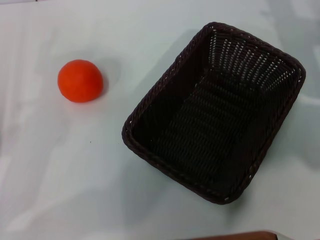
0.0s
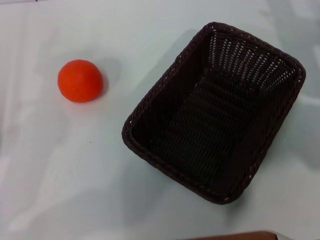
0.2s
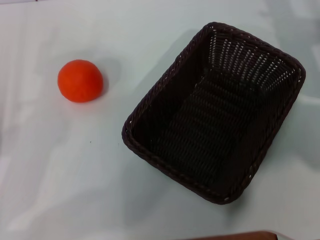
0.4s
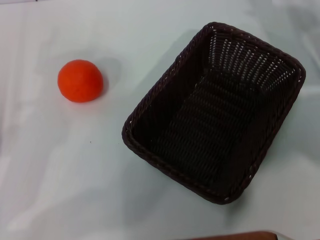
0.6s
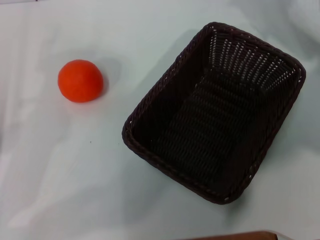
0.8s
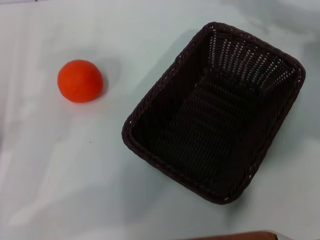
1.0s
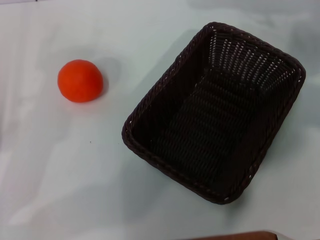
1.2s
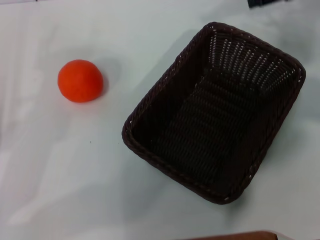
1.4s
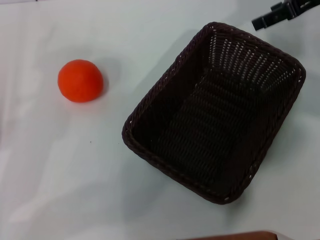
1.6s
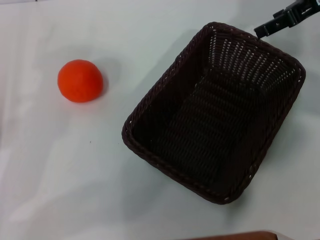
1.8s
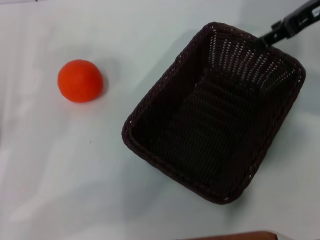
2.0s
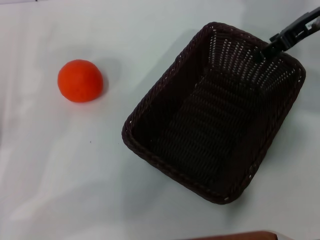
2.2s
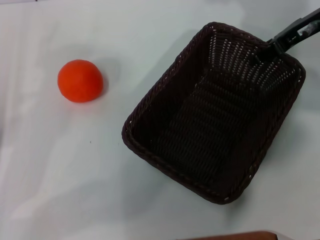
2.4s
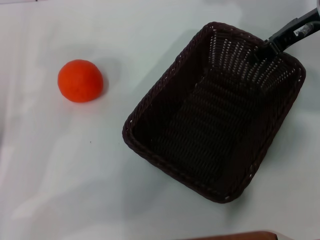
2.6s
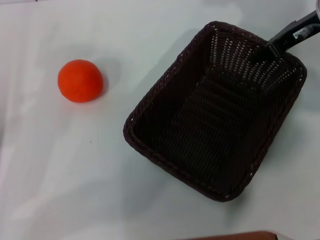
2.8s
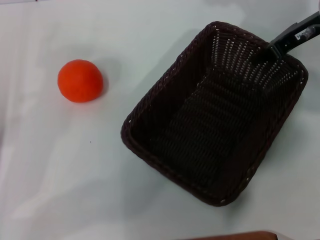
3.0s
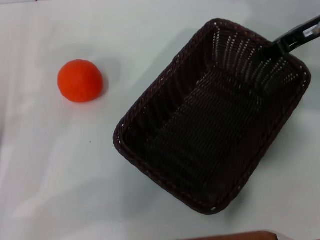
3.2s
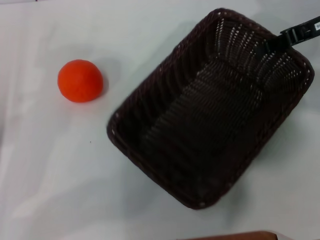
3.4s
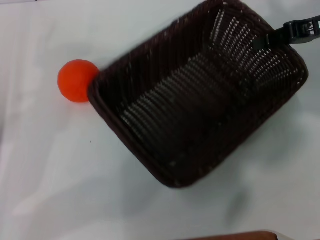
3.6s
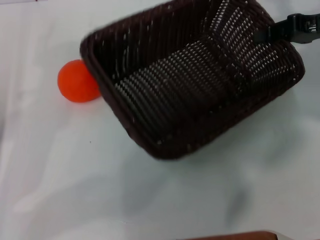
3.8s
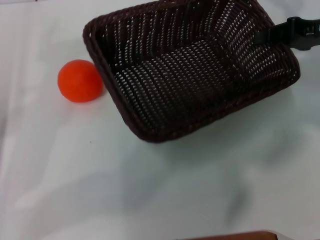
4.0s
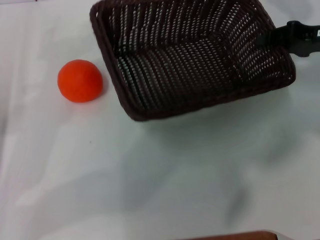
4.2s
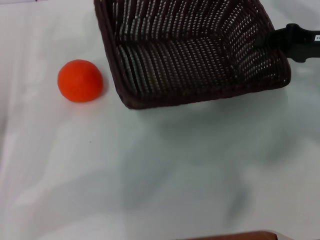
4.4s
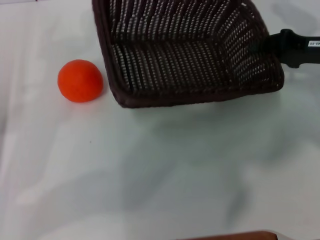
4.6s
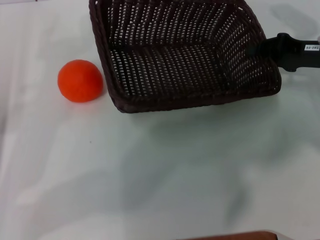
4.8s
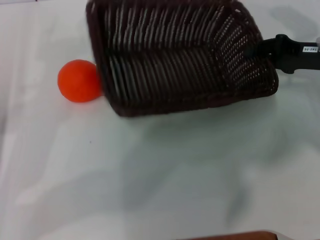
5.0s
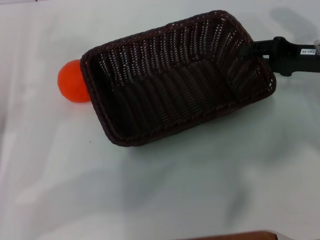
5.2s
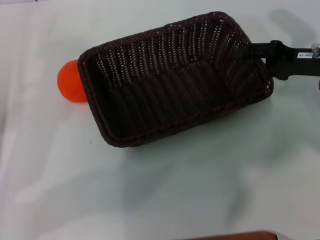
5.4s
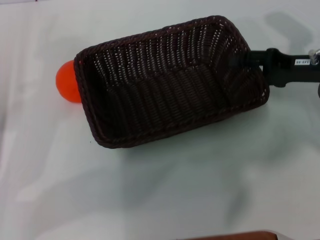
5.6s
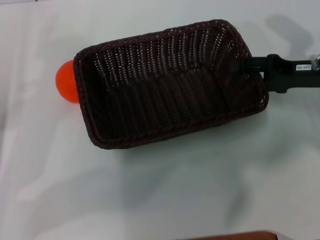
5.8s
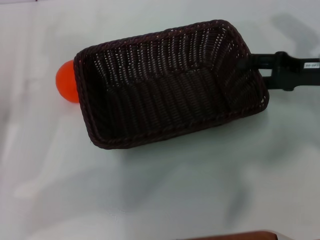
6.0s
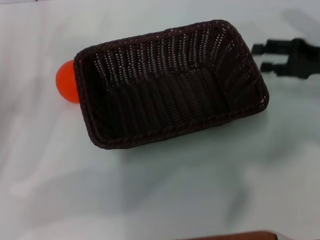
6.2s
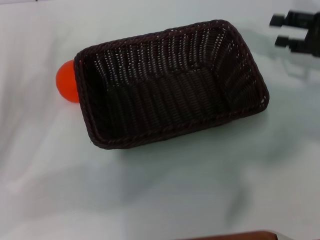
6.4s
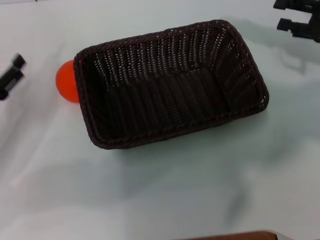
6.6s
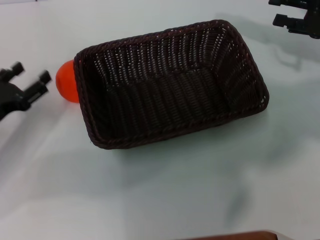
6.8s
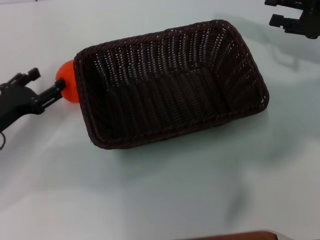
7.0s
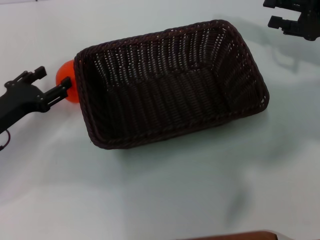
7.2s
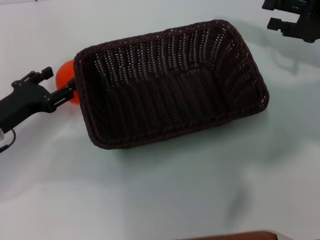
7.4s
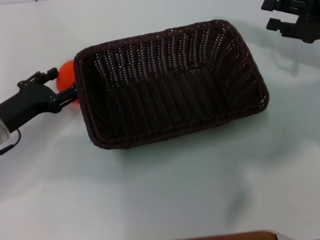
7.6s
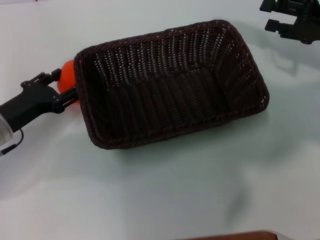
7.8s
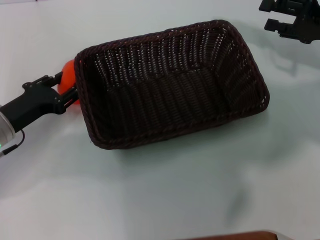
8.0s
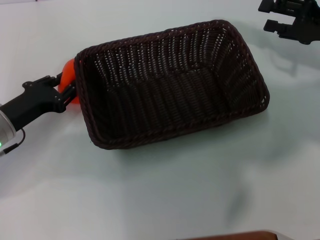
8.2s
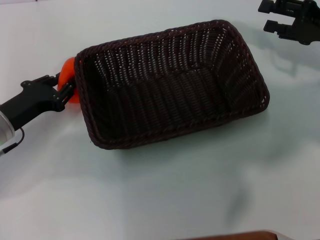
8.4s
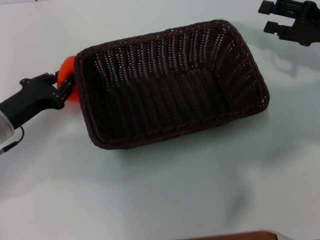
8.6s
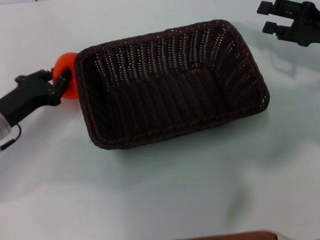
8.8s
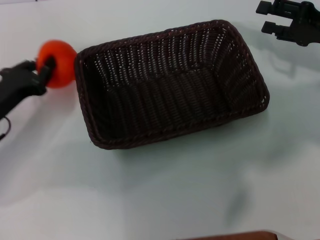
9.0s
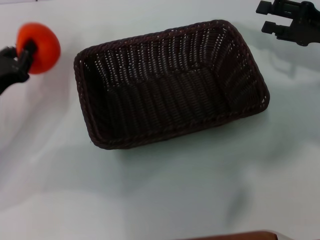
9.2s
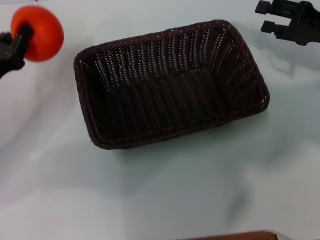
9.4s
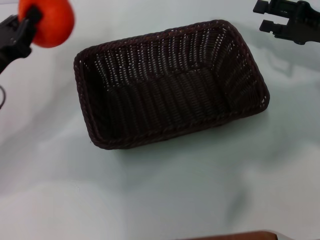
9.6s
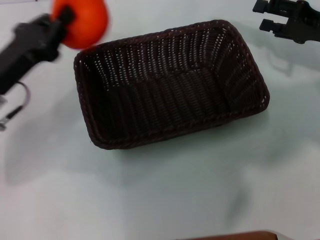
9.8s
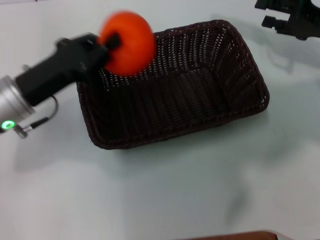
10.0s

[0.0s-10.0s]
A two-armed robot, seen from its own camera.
Task of the whole recording: the right gripper pick up the black basket and place it horizontally in the middle of the table, the left gripper pick up the orange and place it into the black basket.
Step, 0.0s to 3.0s: Pick up the dark basket with the right gripper.
Step, 3.2s to 6.2s: Place the dark basket in the center of view with the right gripper.
Step, 6.4s to 9.0s: Pick up the orange with the left gripper.
0.0s to 1.4s: The right gripper moves upward, approximately 15 cm.
1.4s to 2.8s: The right gripper shifts approximately 5 cm downward, and closes.
2.8s to 4.2s: The right gripper goes some 5 cm to the right.
4.2s to 5.8s: The right gripper shifts by about 5 cm, and opens.
5.8s to 7.2s: The right gripper changes place by approximately 5 cm; the left gripper ends up approximately 5 cm from where it was.
7.2s to 8.6s: The left gripper closes its fingers.
8.6s to 10.0s: The left gripper is displaced upward by approximately 5 cm.

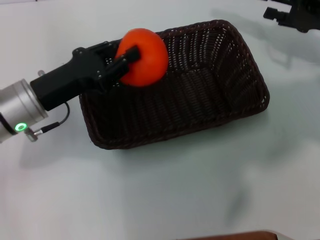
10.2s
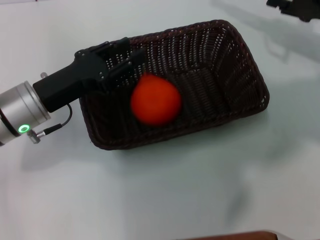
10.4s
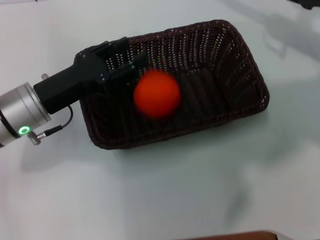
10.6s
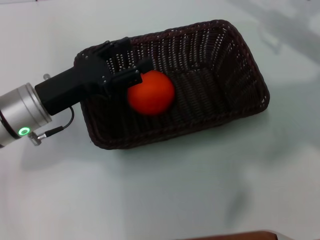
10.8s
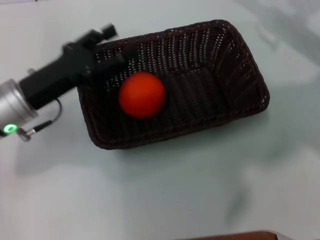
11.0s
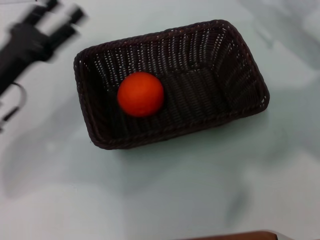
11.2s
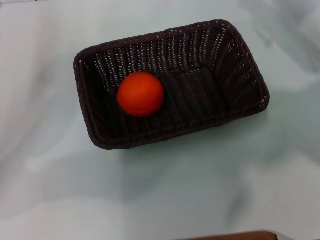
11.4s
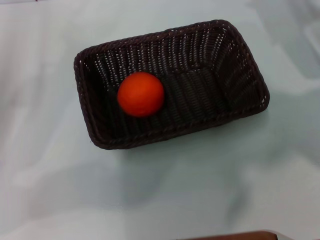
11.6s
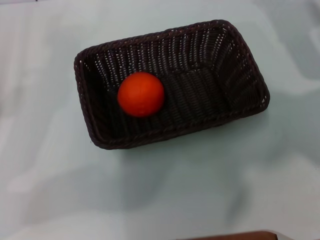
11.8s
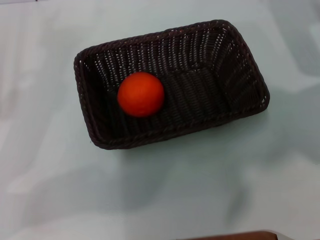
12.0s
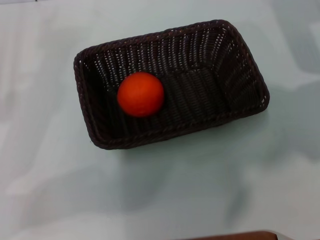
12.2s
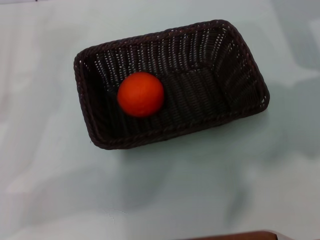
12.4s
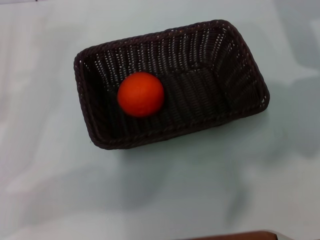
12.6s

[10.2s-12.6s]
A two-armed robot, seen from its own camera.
Task of the whole recording: the right gripper pick up the black basket and place it horizontally in the middle of the table, the left gripper pick up the orange and place it into the black basket.
10.2s to 11.4s: The left gripper moves to the left, roughly 10 cm, and opens its fingers.
11.4s to 12.6s: The left gripper travels to the left by about 5 cm.

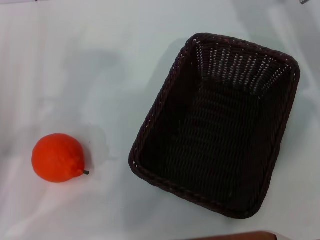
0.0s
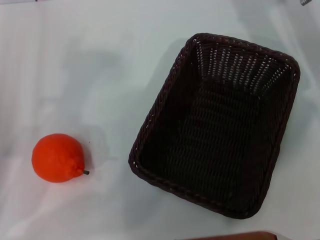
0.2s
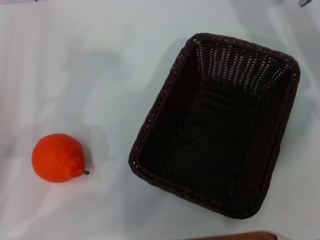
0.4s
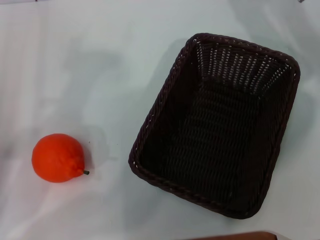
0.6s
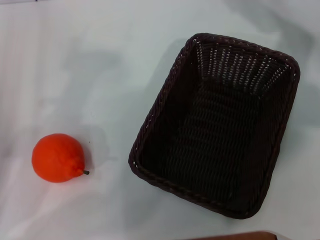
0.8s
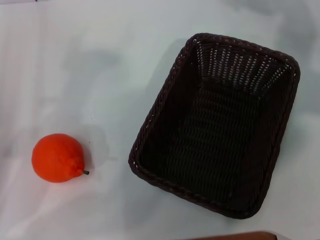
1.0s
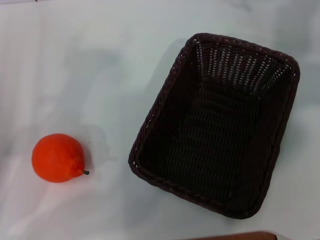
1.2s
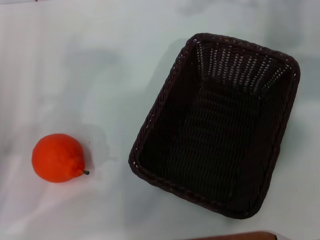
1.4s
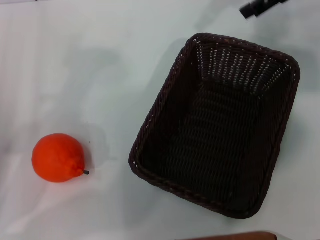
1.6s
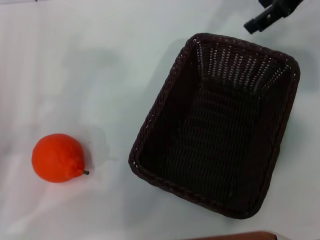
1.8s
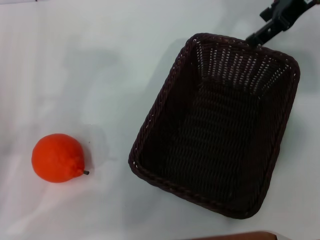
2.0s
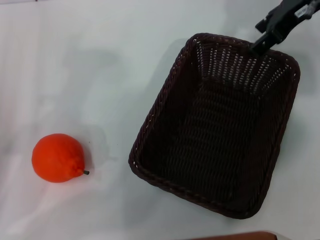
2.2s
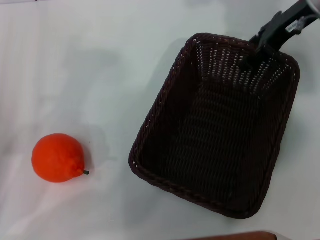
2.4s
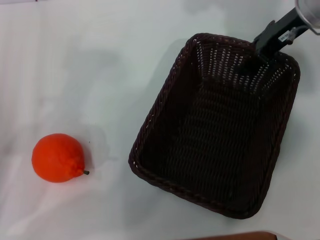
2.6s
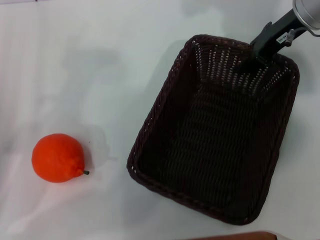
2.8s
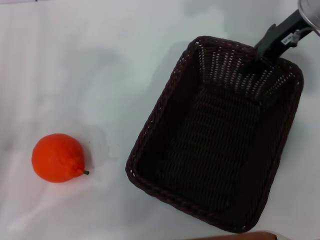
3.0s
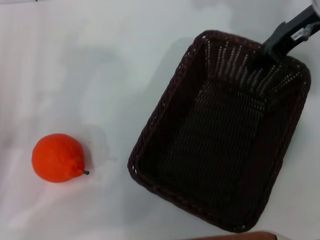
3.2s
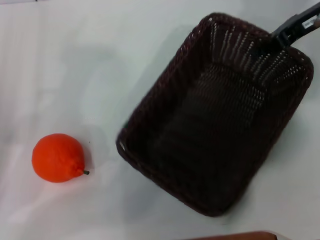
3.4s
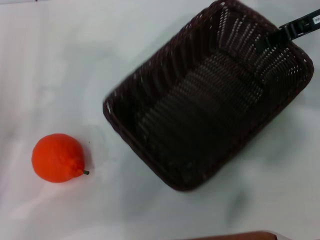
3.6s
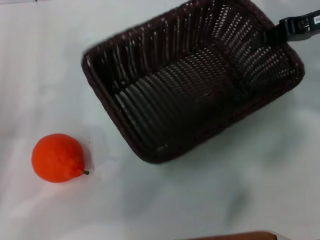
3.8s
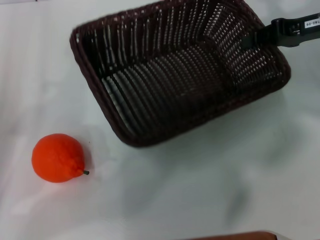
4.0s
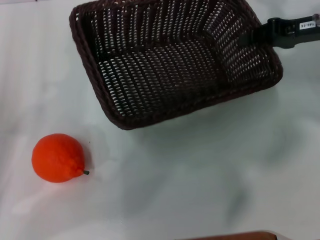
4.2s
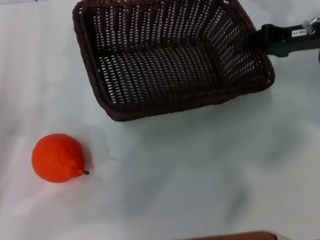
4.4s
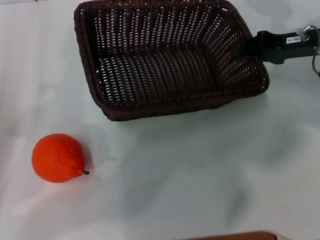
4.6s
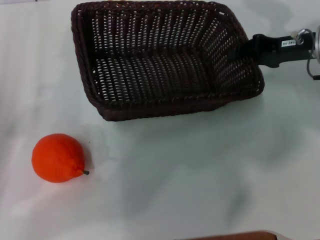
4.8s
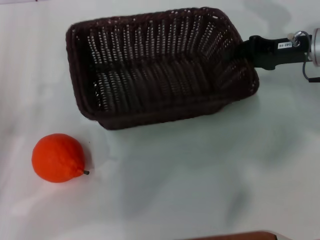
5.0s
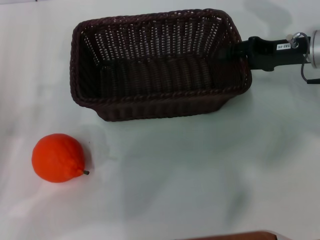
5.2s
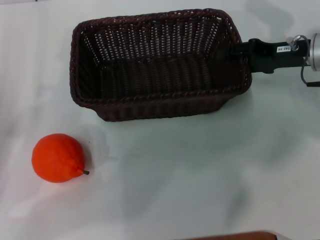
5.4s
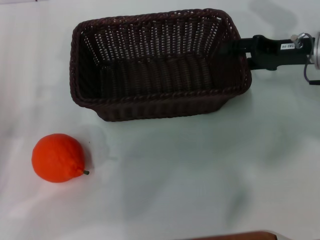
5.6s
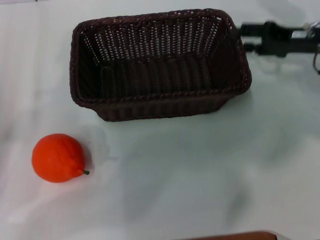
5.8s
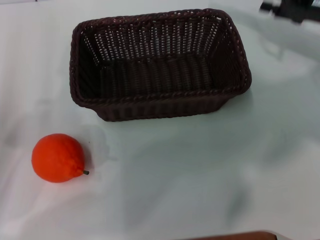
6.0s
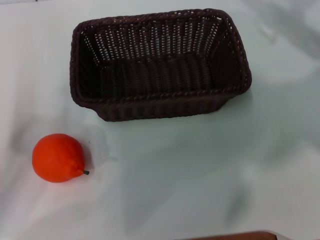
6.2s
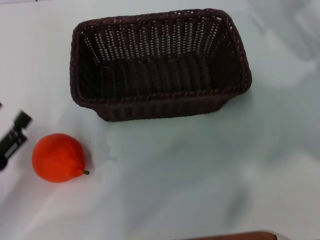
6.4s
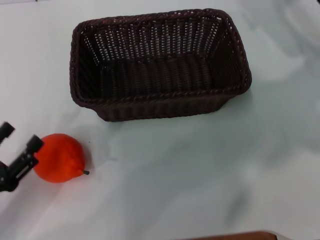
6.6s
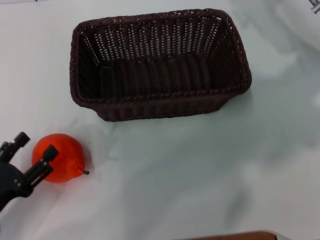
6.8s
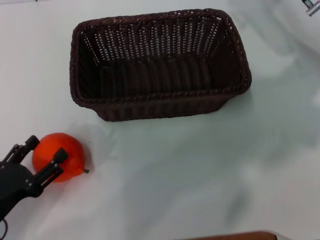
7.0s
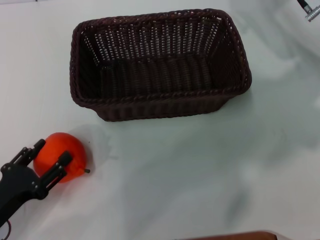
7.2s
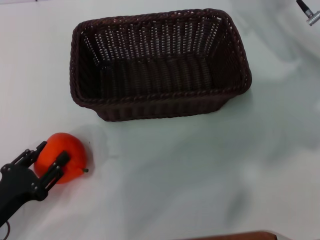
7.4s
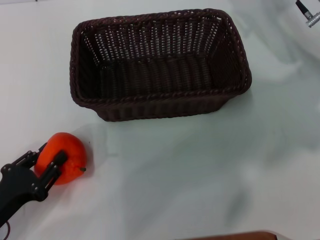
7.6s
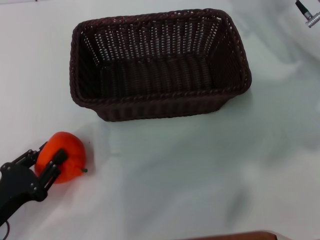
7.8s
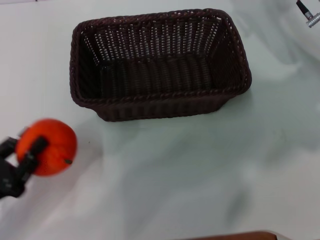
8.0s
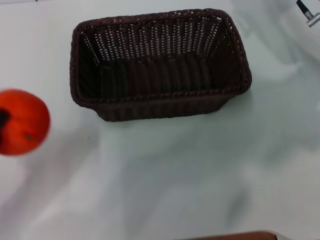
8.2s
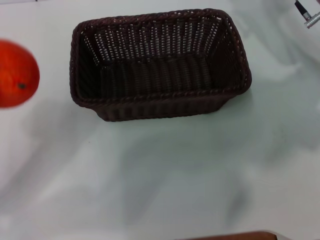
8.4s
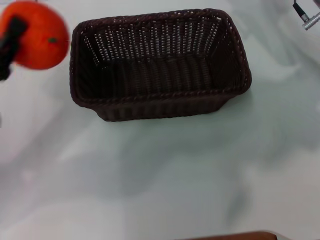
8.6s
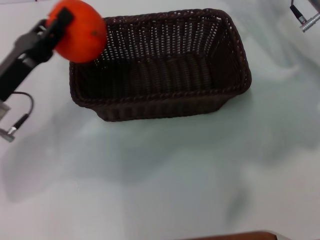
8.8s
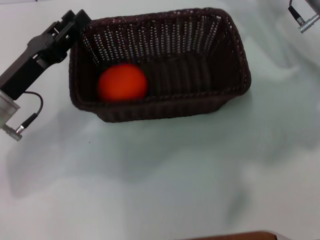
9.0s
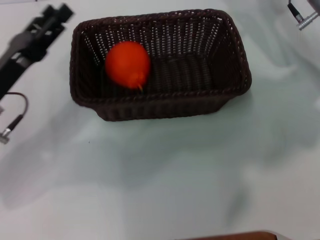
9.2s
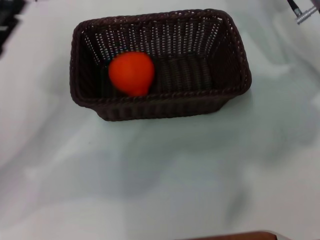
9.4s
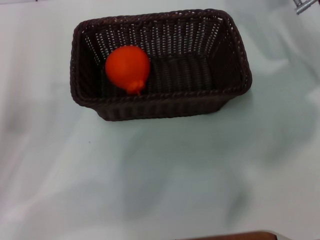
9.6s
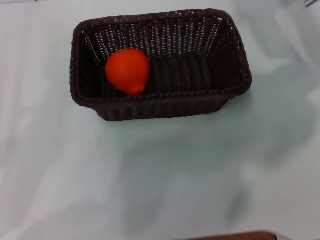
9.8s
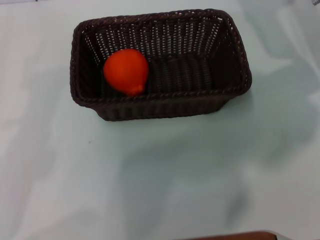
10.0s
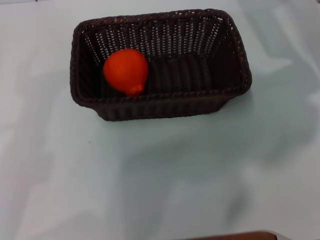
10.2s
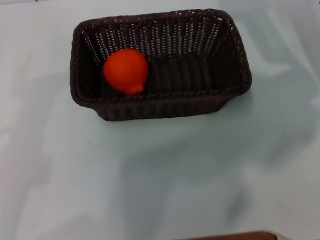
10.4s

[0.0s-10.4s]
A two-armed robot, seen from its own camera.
Task of the whole recording: the right gripper pick up the black basket and place it horizontally in the middle of the table, the left gripper pick up the orange and place it into the black basket.
Step, 0.0s to 3.4s: Pick up the dark basket with the right gripper.
Step, 3.8s to 5.6s: Place the dark basket in the center of view with the right gripper.
Step, 6.0s to 8.2s: Pick up the orange with the left gripper.
Step, 8.6s to 9.0s: Place the orange into the dark basket with the left gripper.
0.0s to 1.4s: The right gripper shifts about 10 cm upward.
1.4s to 3.0s: The right gripper travels downward by approximately 10 cm, and closes.
3.0s to 4.4s: The right gripper is displaced to the right and downward by about 10 cm.
4.4s to 6.0s: The right gripper opens its fingers.
6.0s to 7.4s: The right gripper heads to the left, covering some 5 cm; the left gripper is displaced downward and backward by some 10 cm.
7.4s to 9.0s: The left gripper shifts about 15 cm forward and upward, and closes.
9.0s to 10.4s: The left gripper travels backward and to the left by roughly 20 cm, and opens its fingers.
